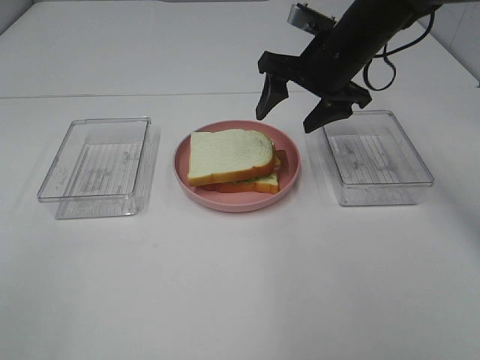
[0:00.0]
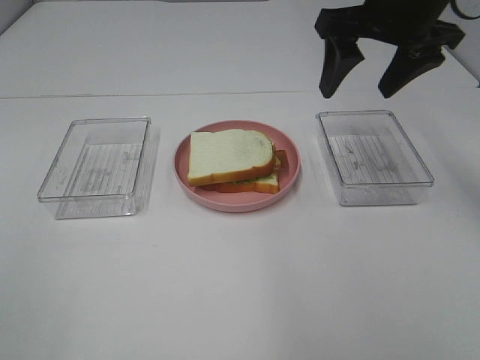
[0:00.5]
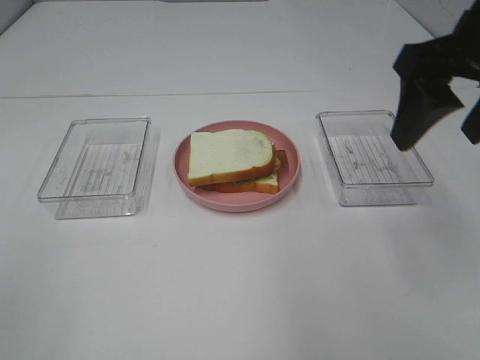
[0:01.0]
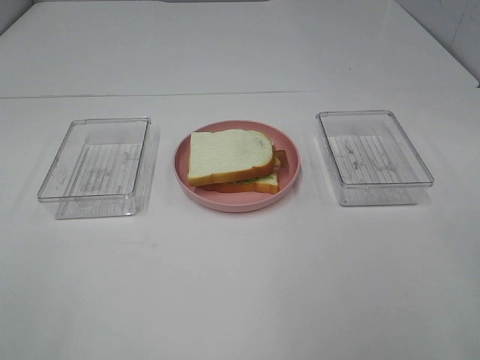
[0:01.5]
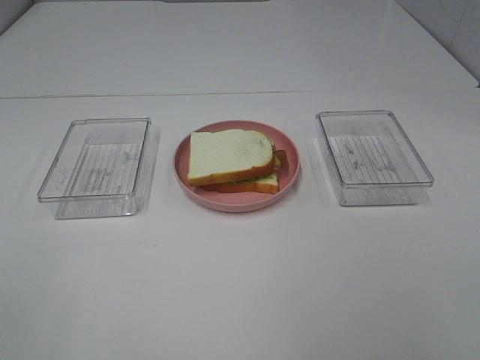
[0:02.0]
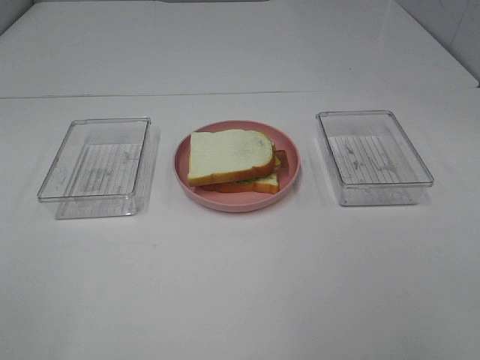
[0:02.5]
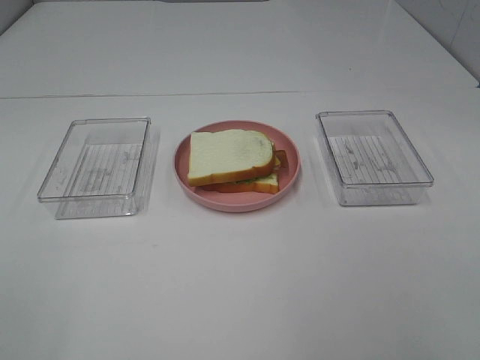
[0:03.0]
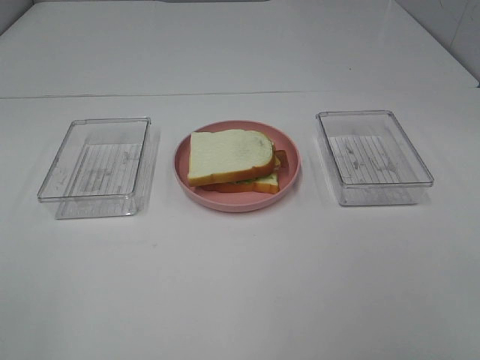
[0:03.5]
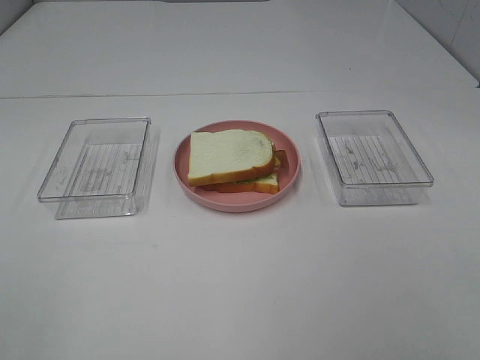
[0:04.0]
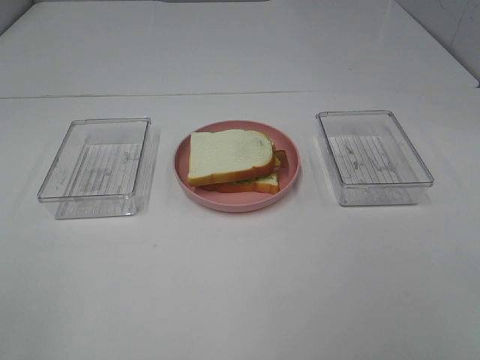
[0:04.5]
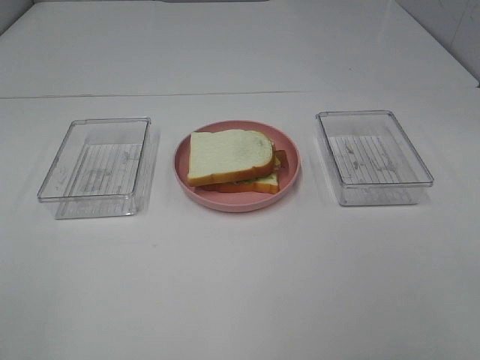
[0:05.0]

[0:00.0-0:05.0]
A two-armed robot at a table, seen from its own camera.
Task of the whole recording: Make sandwiches.
0:00.0 to 0:02.5: The right gripper shifts approximately 40 cm backward.

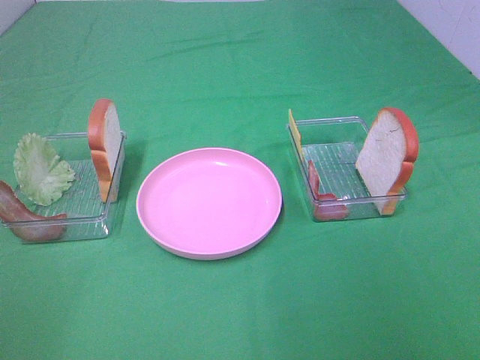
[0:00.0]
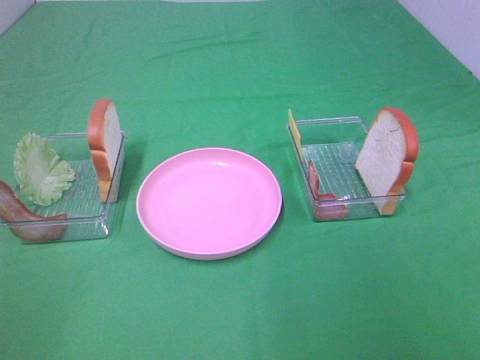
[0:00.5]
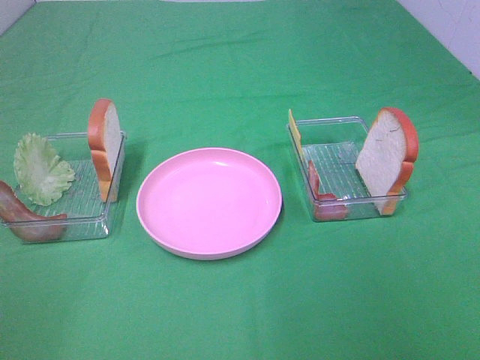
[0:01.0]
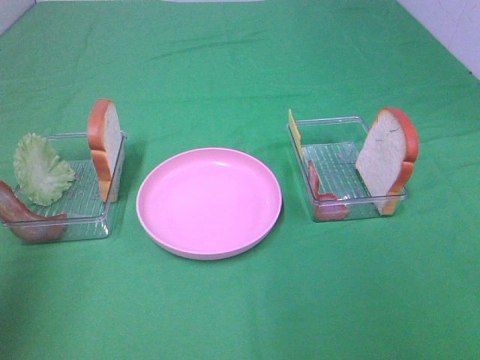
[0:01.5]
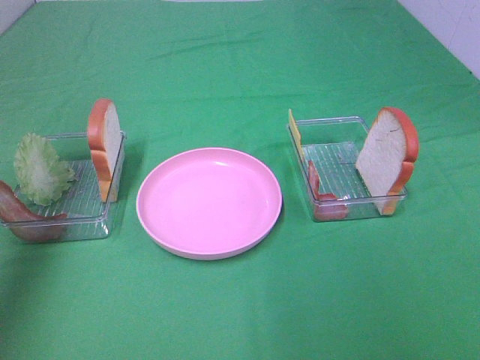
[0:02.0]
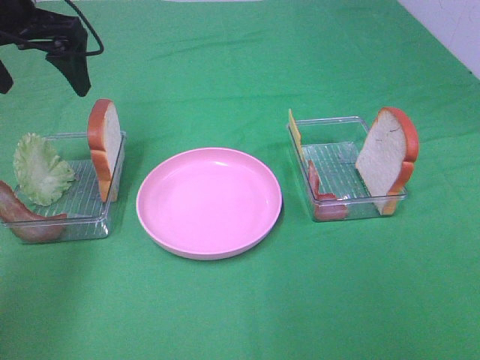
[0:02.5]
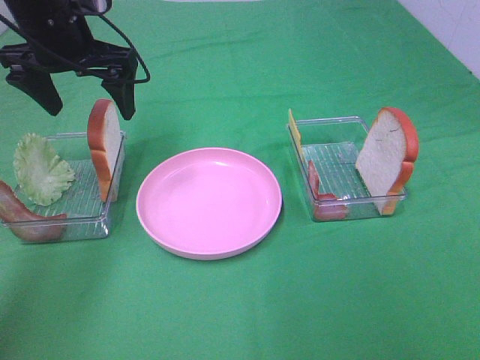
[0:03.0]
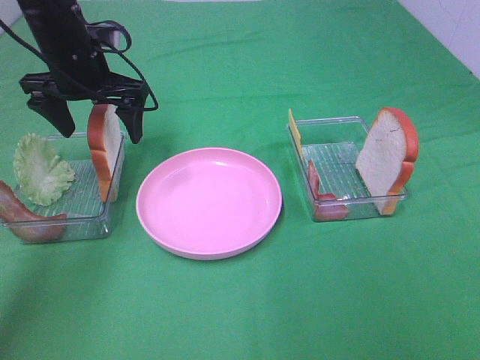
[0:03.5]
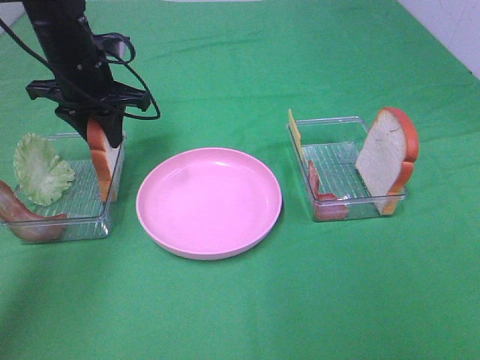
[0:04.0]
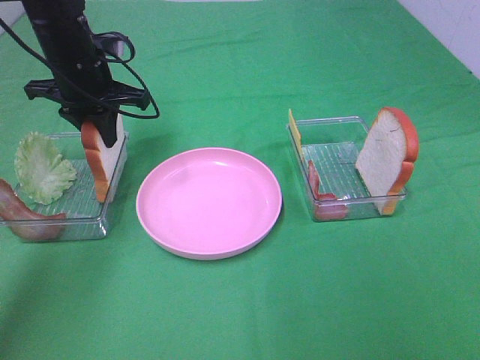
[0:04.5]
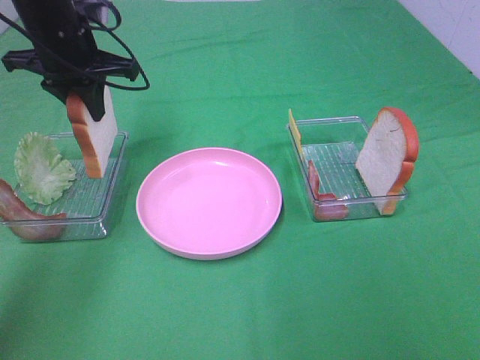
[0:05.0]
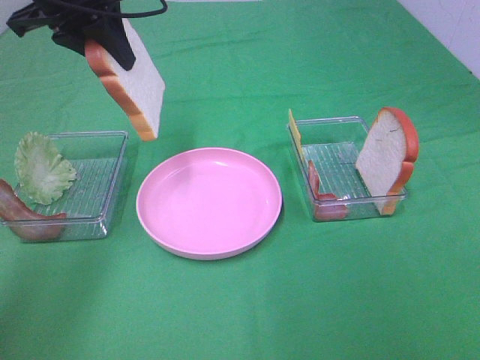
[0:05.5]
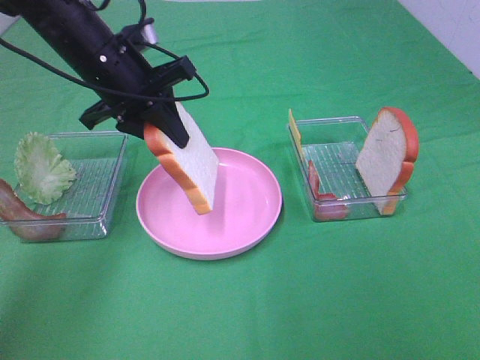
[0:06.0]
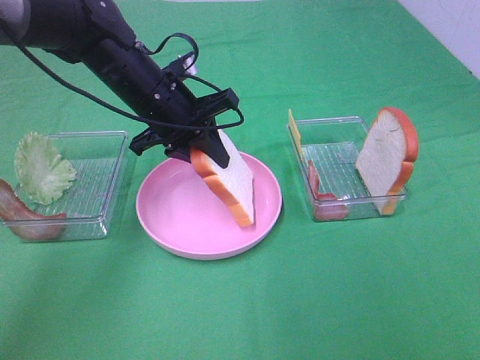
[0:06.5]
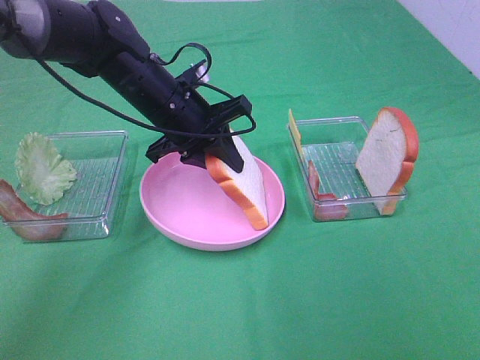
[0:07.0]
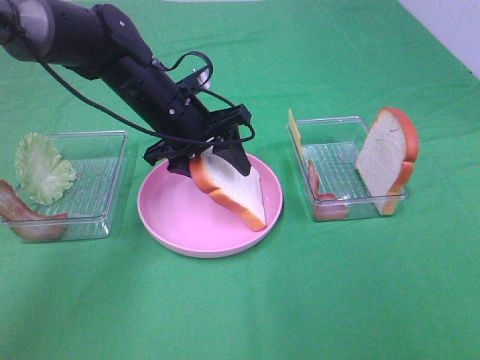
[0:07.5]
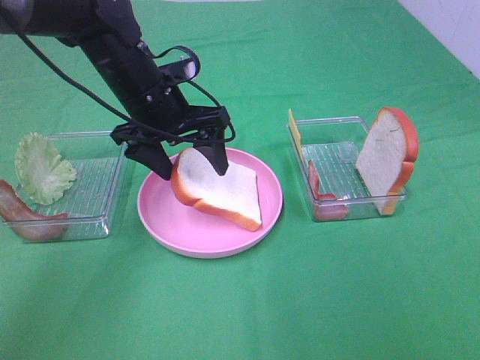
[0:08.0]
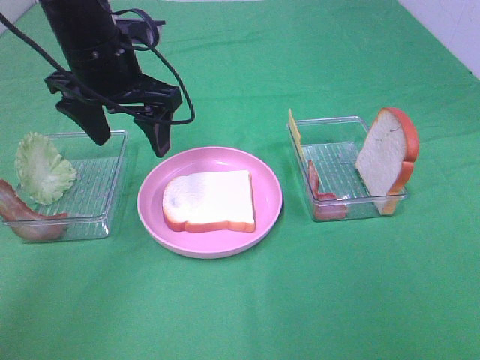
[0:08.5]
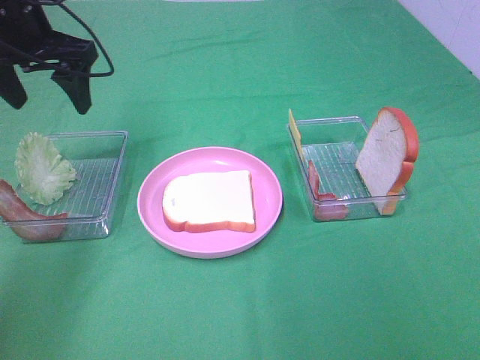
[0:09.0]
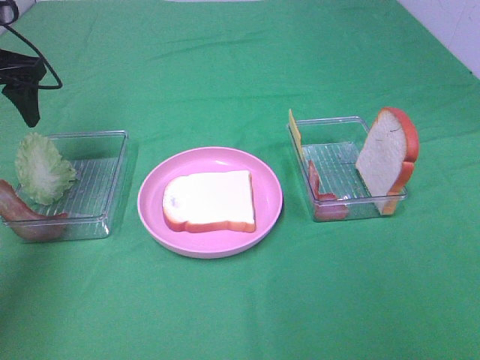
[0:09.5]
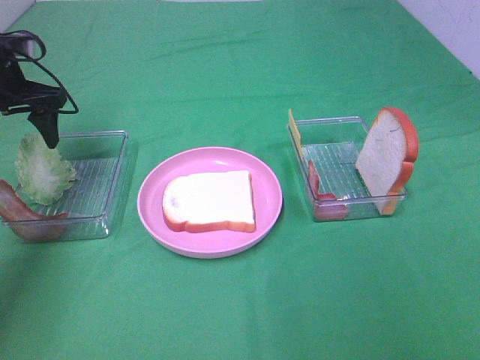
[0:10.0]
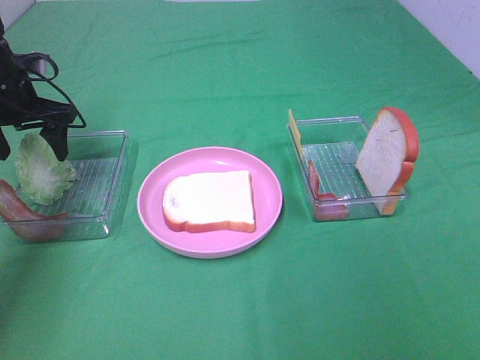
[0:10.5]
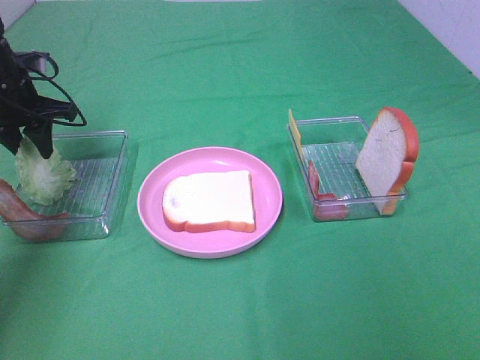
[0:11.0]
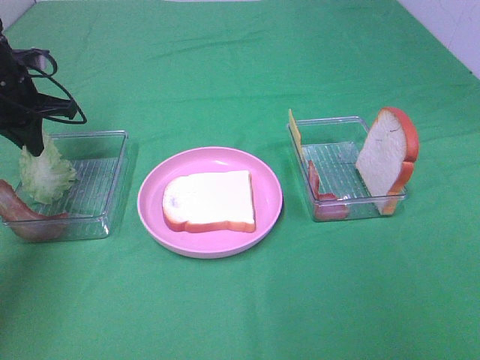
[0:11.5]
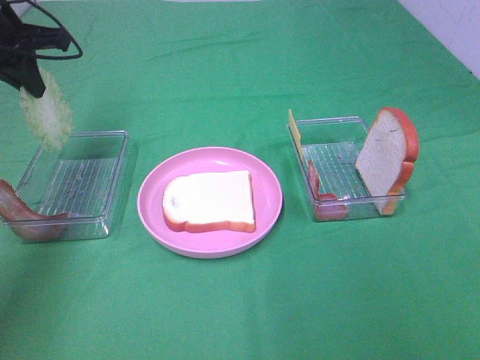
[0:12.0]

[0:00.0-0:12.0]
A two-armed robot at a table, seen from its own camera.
Task of the whole recording: Make sandwiches.
Step, 0:00.0 to 0:04.5: Left hand:grab the bread slice.
Step, 0:05.0 to 0:08.0: Left hand:place the bread slice on the plate.
Step, 0:08.5 to 0:11.0: Left hand:grab the lettuce slice.
0:00.0 to 0:02.0: The left gripper travels forward by roughly 35 cm.
0:02.0 to 0:04.0: The left gripper moves downward, to the right and forward, roughly 25 cm, and closes up.
0:04.0 to 0:06.0: The left gripper travels to the right and backward by some 5 cm, and moves roughly 10 cm upward and comes back.
0:06.0 to 0:08.0: The left gripper opens.
0:08.0 to 0:10.0: The left gripper travels to the left by some 20 cm.
0:10.0 to 0:12.0: The left gripper is displaced upward by roughly 10 cm, and closes up.

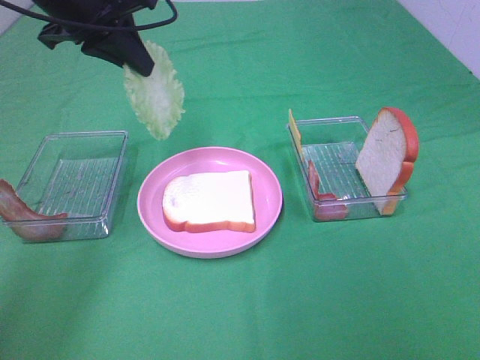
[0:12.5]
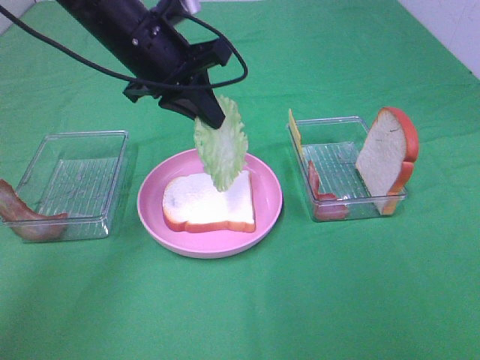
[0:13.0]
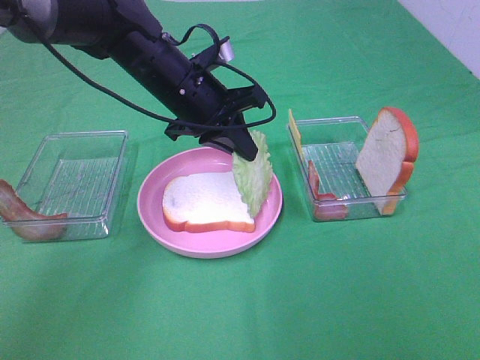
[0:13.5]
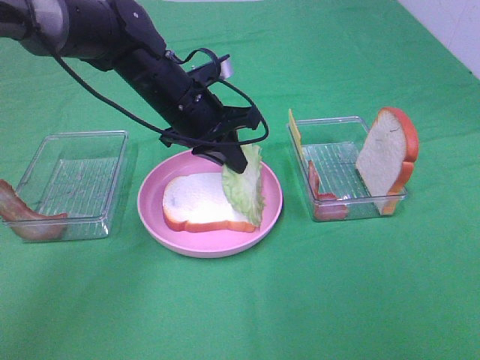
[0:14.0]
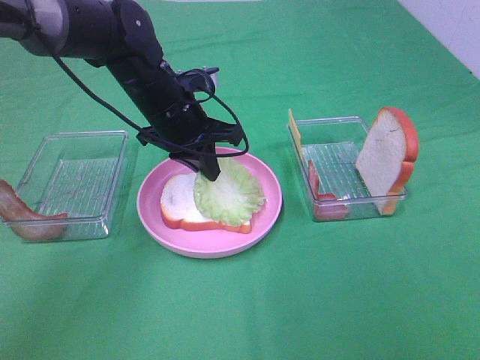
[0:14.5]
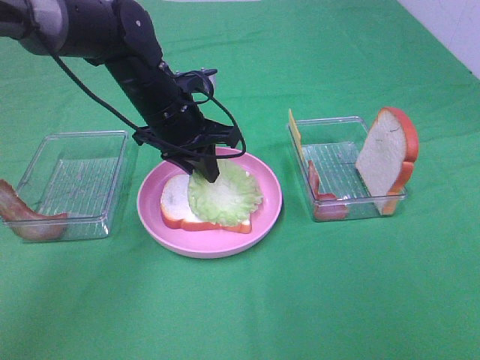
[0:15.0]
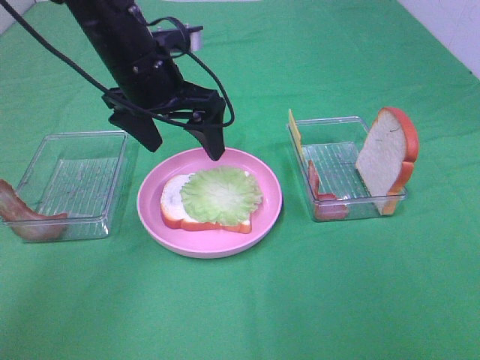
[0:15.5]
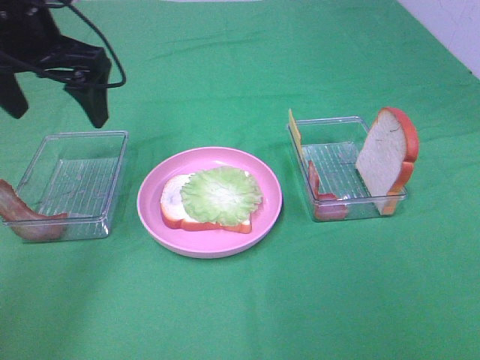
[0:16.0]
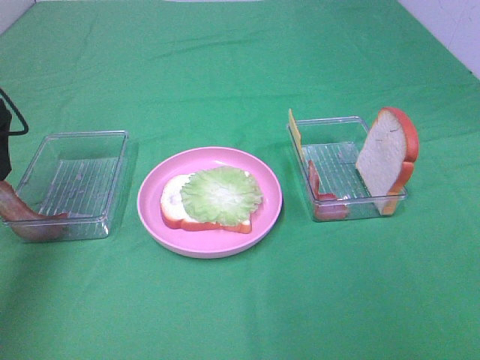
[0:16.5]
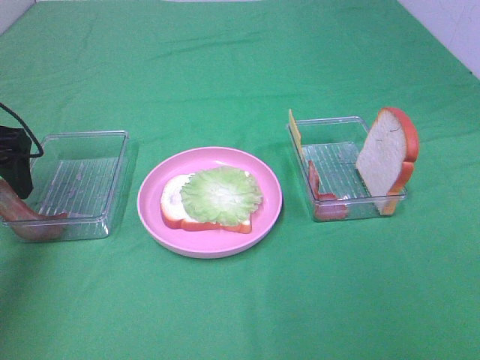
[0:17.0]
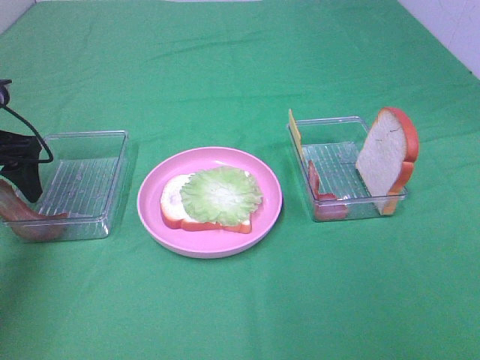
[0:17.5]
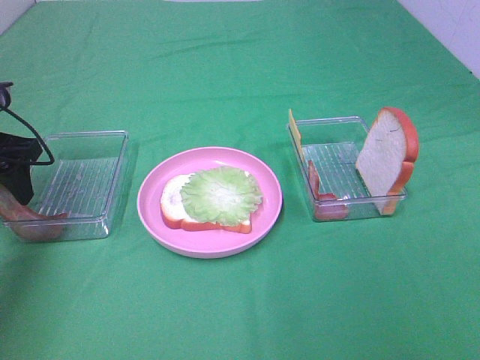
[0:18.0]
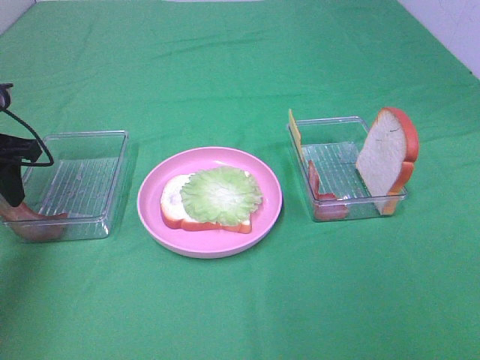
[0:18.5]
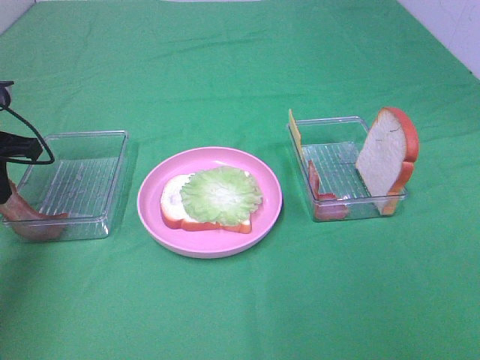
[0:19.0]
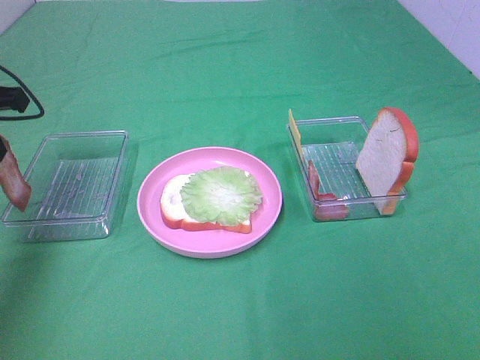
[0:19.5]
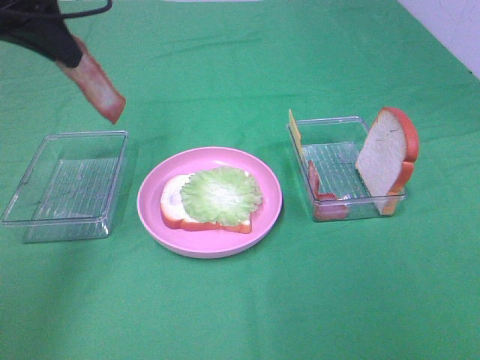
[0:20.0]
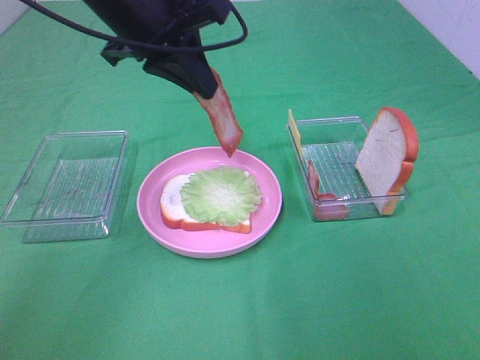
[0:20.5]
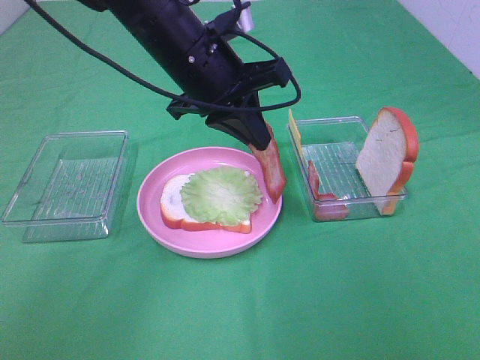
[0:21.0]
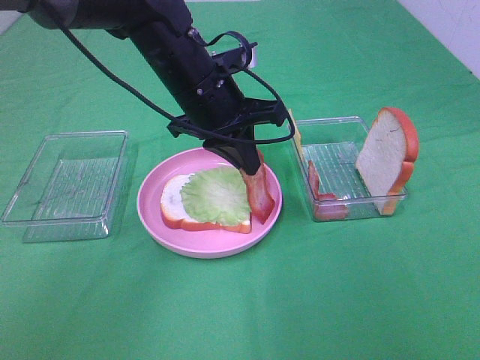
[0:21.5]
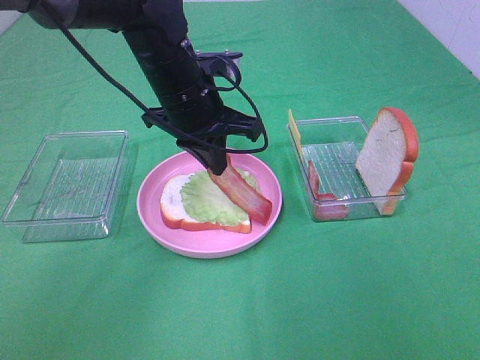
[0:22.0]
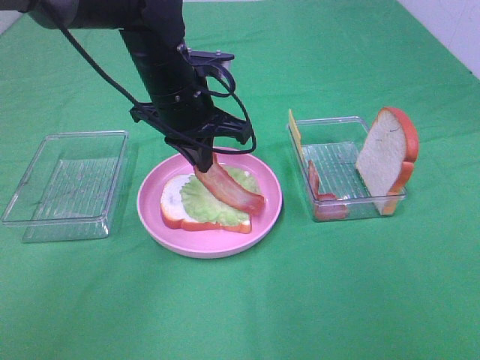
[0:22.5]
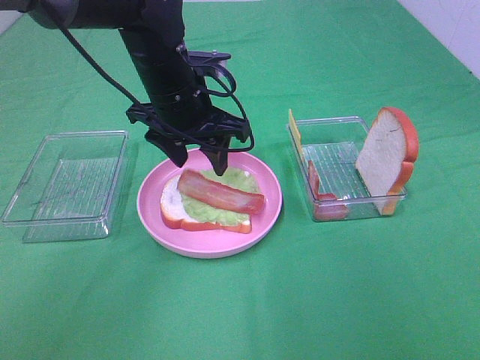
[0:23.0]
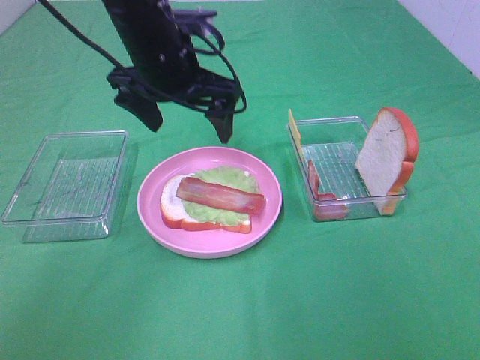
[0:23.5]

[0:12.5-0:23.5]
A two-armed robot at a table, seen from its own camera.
Task of the whole recording: Make sandwiches.
Step, 0:12.5 to 0:15.0: Left hand:place the lettuce slice on the bread slice.
Step, 0:15.5 to 0:19.0: Left hand:grab the bacon.
Step, 0:19.5 to 0:23.0: Left hand:place bacon on lettuce slice.
0:12.5 to 0:14.5: The left gripper shifts some 15 cm downward and to the right.
0:14.5 to 0:16.0: The left gripper moves upward and to the left, some 20 cm, and opens up.
0:16.0 to 0:18.0: The left gripper heads downward and to the left, covering roughly 15 cm.
0:18.0 to 0:20.0: The left gripper heads upward and to the right, covering some 20 cm, and closes.
0:20.0 to 0:21.5: The left gripper heads to the right and downward, covering about 20 cm.
0:21.5 to 0:23.5: The left gripper heads upward, covering about 5 cm, and opens its fingers.
